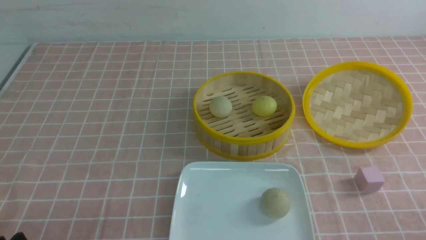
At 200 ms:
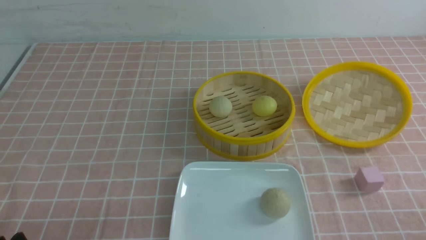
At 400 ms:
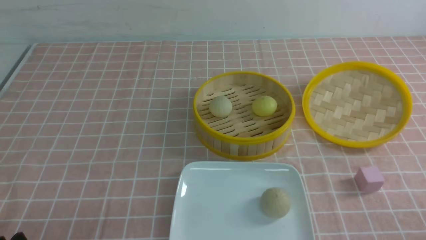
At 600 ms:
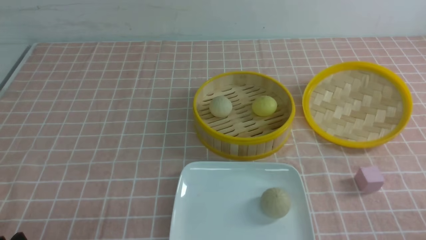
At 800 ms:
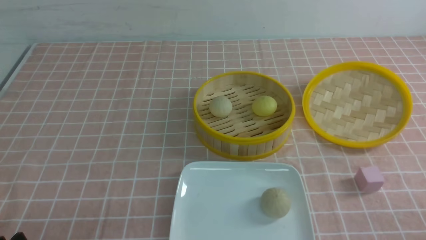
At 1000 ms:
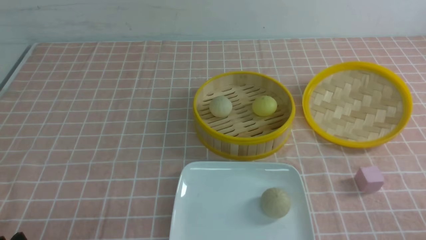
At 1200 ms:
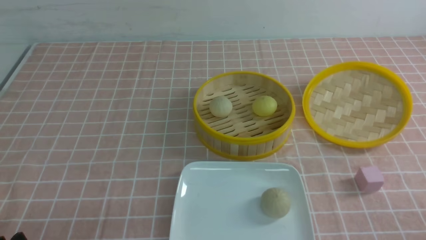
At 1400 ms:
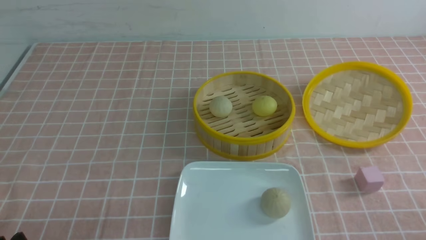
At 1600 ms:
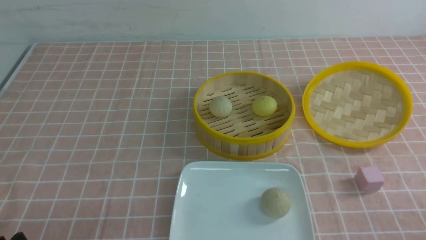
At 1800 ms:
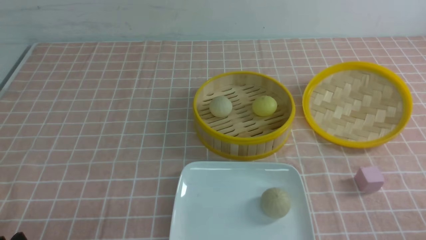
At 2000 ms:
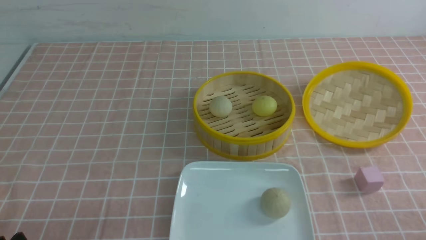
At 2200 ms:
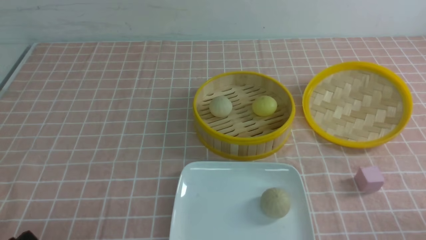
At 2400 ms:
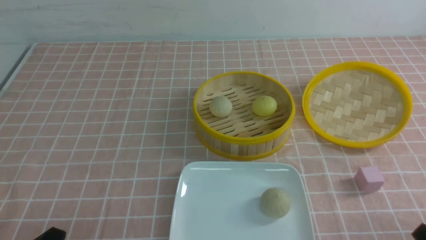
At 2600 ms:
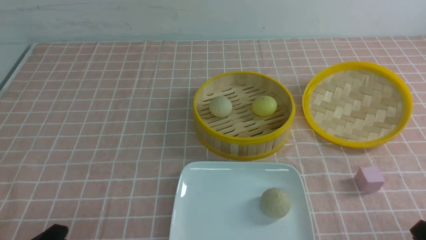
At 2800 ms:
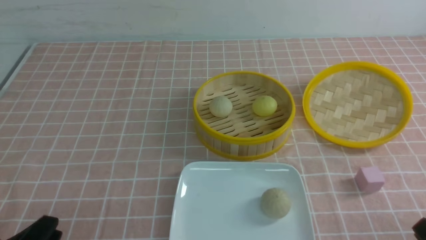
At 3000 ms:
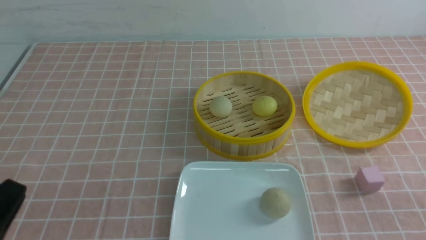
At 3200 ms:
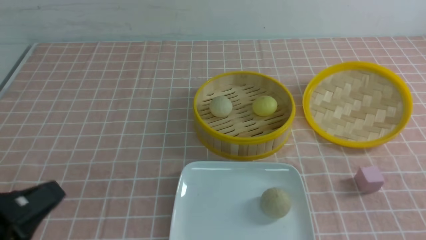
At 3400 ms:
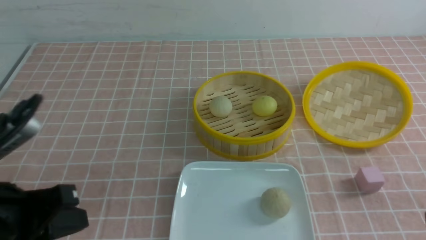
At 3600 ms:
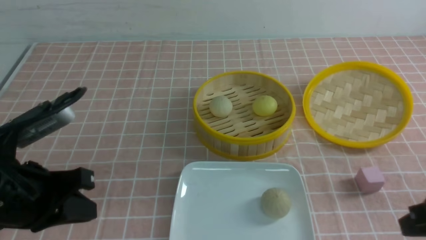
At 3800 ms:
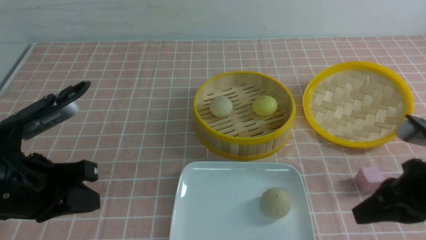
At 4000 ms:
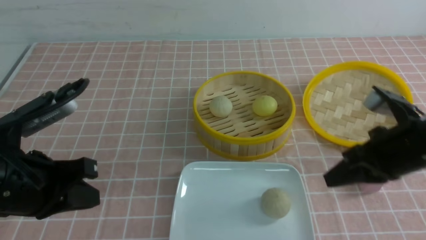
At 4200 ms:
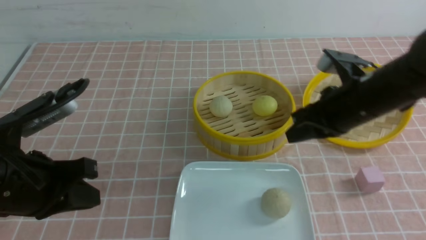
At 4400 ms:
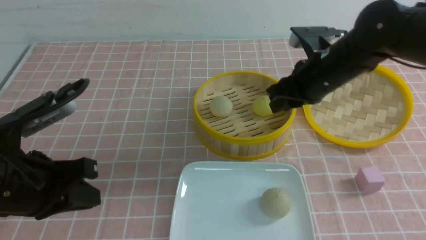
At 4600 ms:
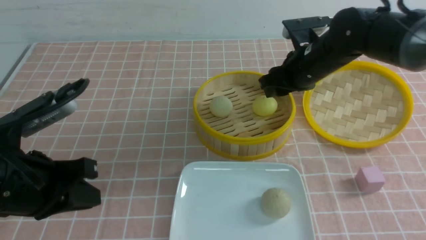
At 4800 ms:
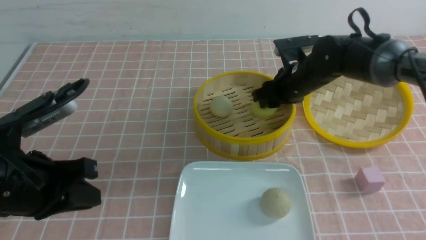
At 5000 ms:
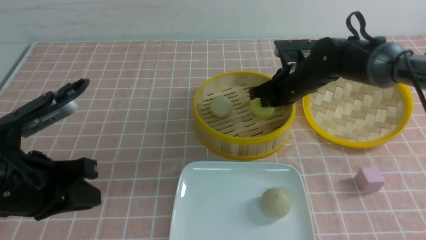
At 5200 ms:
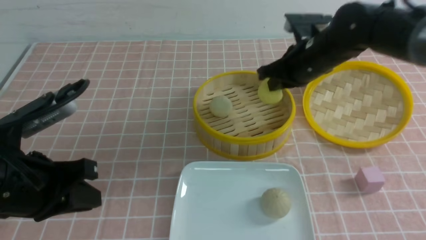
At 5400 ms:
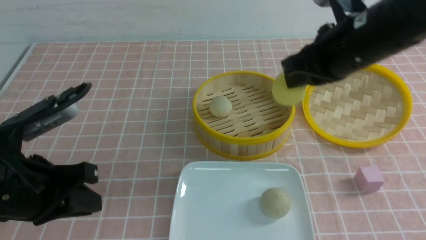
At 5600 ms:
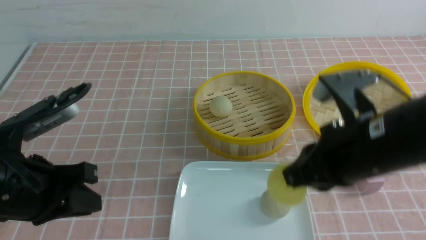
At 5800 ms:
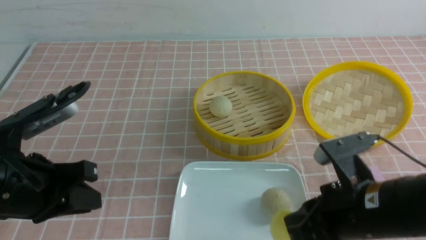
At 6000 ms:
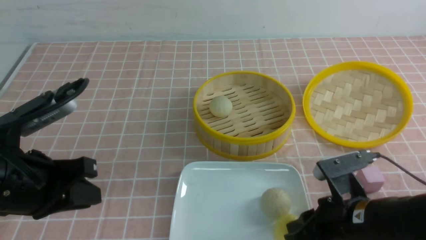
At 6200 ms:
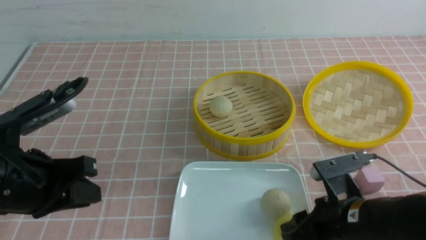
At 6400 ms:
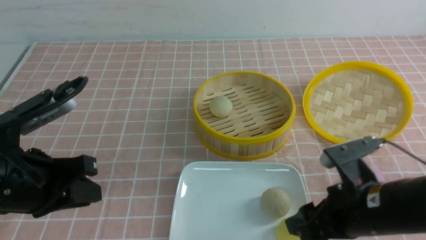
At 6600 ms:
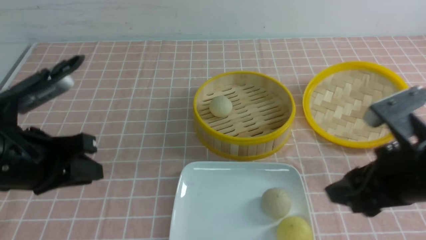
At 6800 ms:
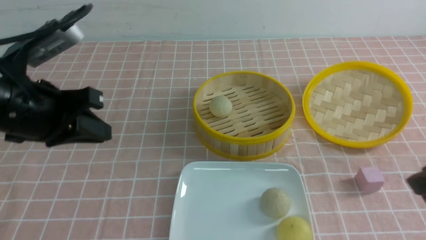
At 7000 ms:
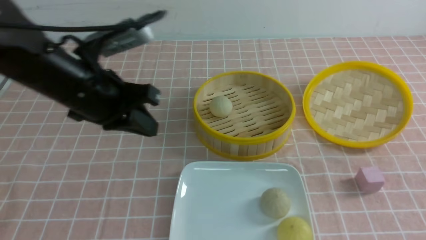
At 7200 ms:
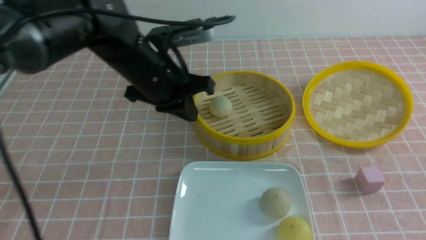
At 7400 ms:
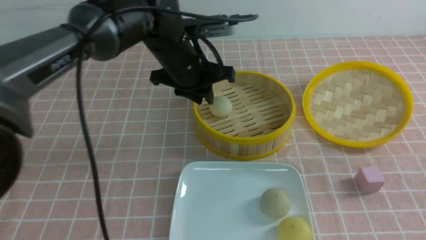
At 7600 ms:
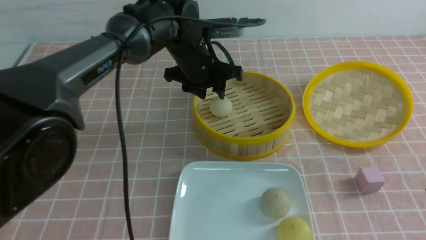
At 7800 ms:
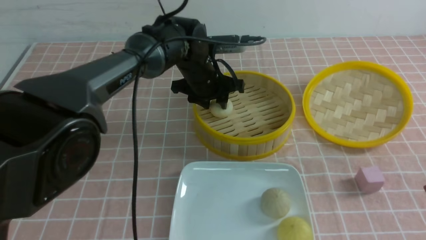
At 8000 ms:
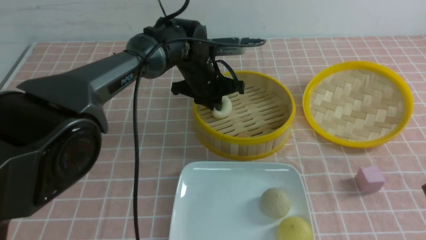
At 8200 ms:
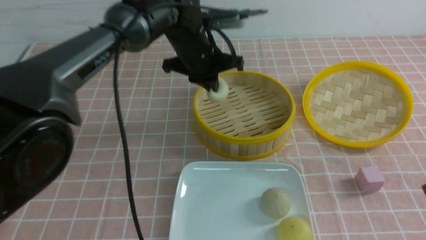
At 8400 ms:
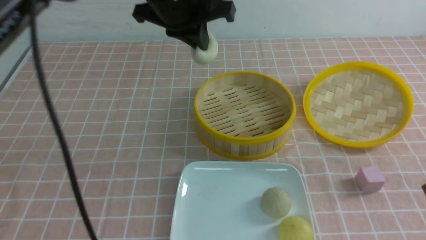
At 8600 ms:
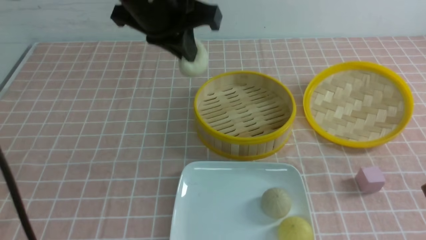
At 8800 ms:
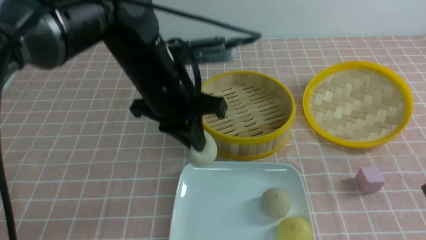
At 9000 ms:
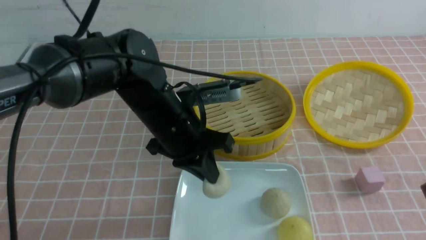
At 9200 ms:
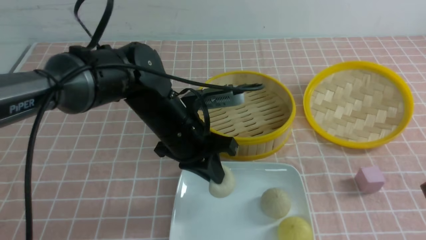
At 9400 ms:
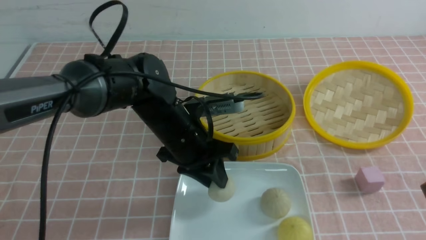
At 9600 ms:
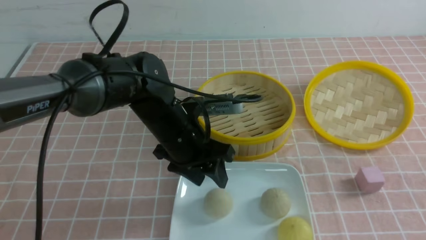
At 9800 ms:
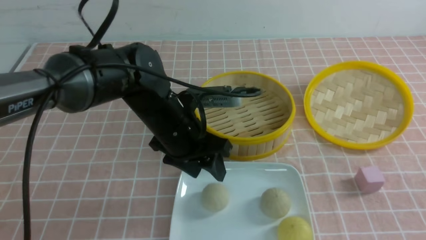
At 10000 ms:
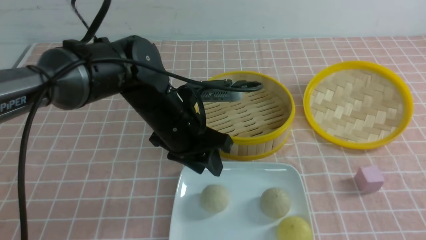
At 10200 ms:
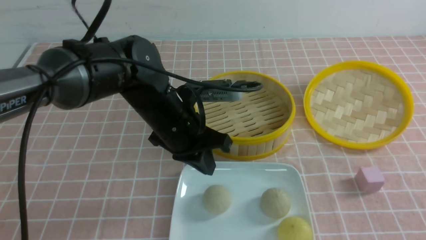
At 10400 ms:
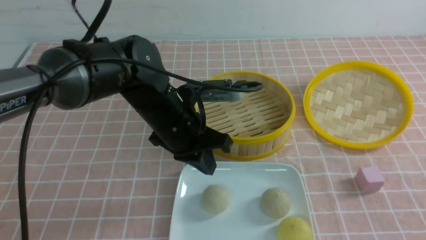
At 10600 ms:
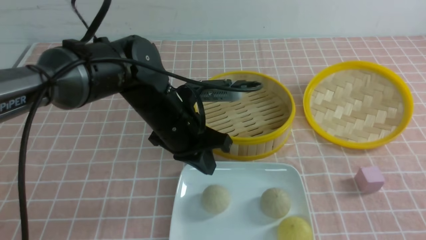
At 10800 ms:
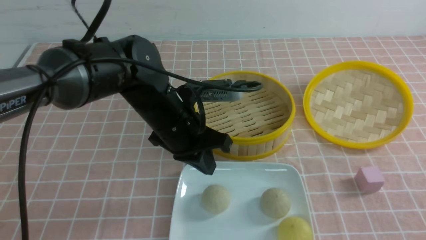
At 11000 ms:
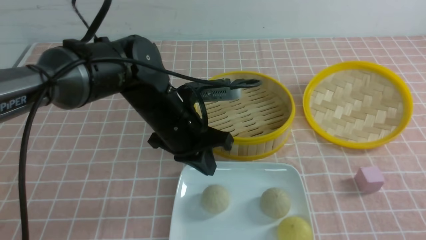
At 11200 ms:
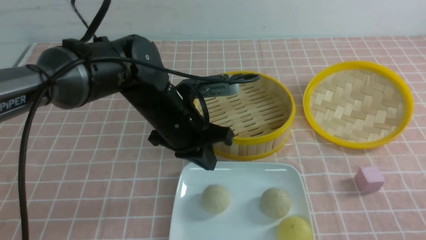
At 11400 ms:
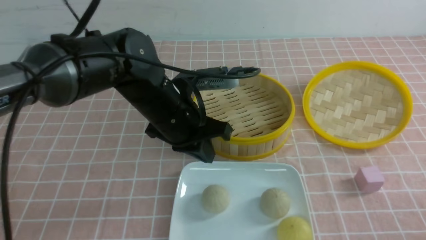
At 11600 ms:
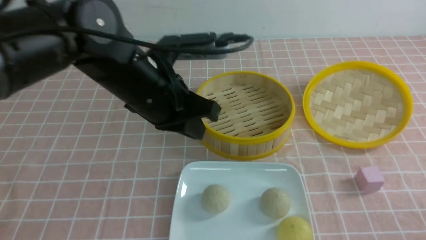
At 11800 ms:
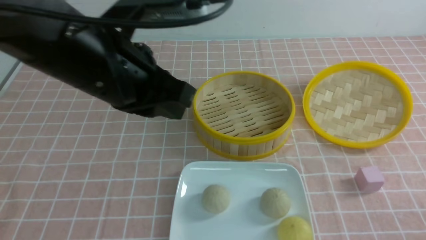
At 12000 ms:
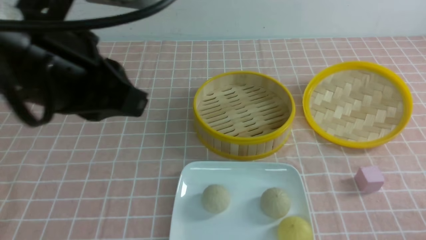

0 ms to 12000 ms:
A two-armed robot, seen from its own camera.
Step, 0 ms to 4800 ms: use the right arm to grab the steamed stuffed bun that is closest to it.
Step, 5200 ms to 6200 ms: use the right arm to put the steamed stuffed bun into the plate.
Step, 6400 ms to 8000 ms: use the left arm to grab the steamed stuffed bun that is closest to it.
Step, 8200 ms to 9600 ms: use the left arm to put the steamed stuffed bun into the plate.
1600 ms to 3000 ms: The left gripper travels upward by roughly 5 cm.
3000 ms to 4400 ms: The right gripper shifts about 30 cm forward and to the left; the left gripper travels forward by about 15 cm.
4400 ms to 6000 ms: The right gripper heads backward and downward, covering approximately 20 cm.
6000 ms to 7600 ms: The right gripper moves to the right and upward, about 15 cm, and opens, then closes once more; the left gripper shifts about 30 cm forward and to the right, and opens its fingers.
7600 ms to 9000 ms: The left gripper shifts approximately 10 cm backward, moves roughly 10 cm upward and comes back, and closes up.
9000 ms to 10400 ms: The left gripper opens, then closes once more, while the right gripper travels backward by about 10 cm.
10400 ms to 12000 ms: The left gripper travels upward, backward and to the left by some 20 cm. The right gripper heads downward, covering roughly 10 cm.

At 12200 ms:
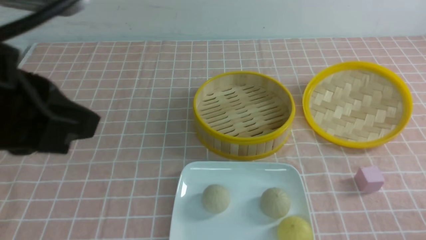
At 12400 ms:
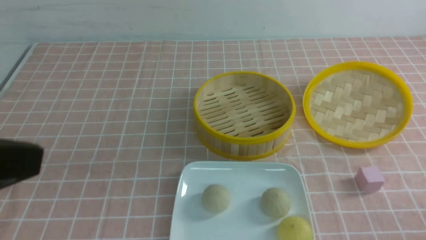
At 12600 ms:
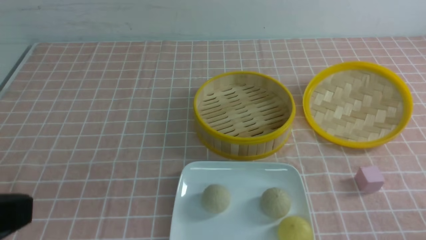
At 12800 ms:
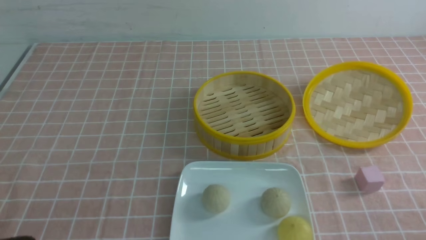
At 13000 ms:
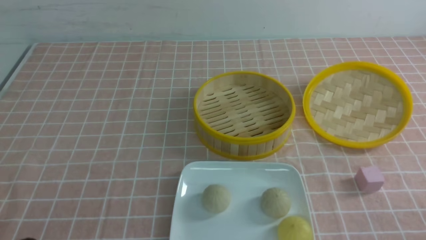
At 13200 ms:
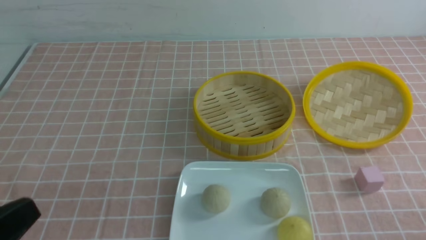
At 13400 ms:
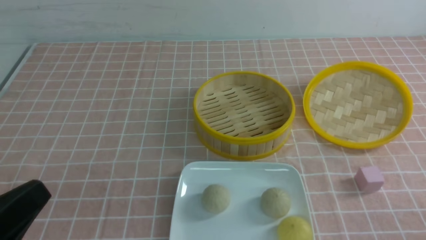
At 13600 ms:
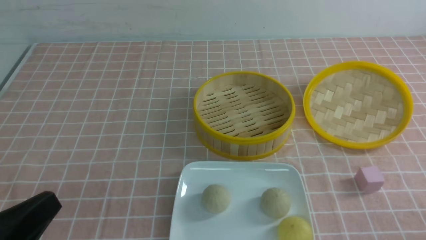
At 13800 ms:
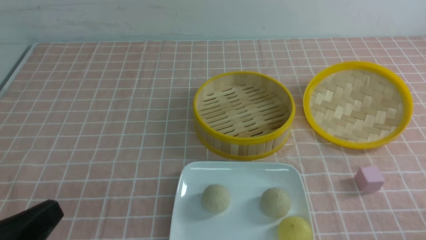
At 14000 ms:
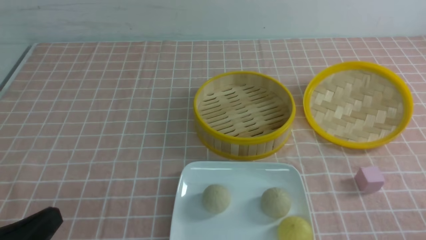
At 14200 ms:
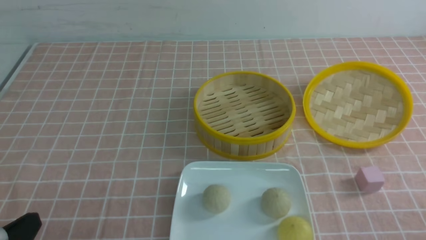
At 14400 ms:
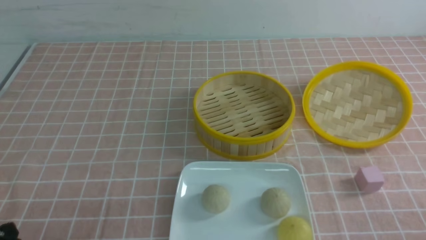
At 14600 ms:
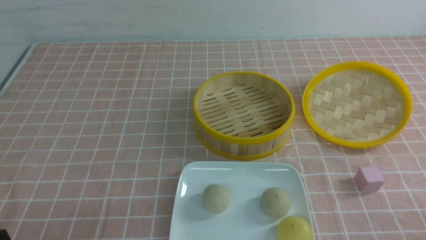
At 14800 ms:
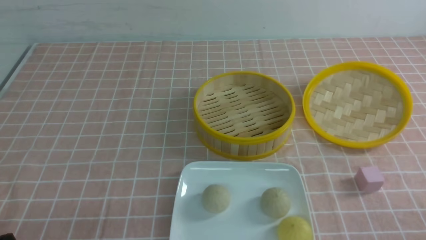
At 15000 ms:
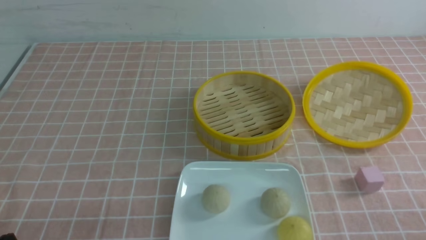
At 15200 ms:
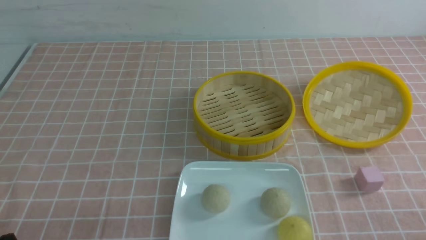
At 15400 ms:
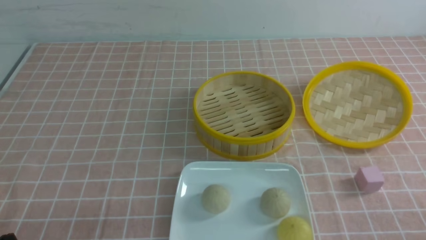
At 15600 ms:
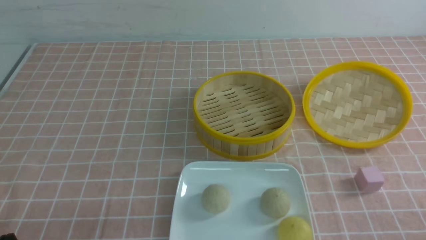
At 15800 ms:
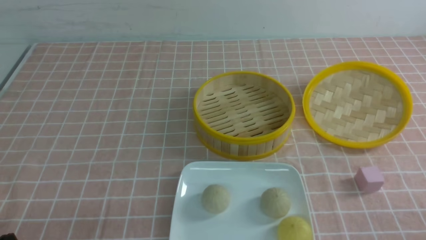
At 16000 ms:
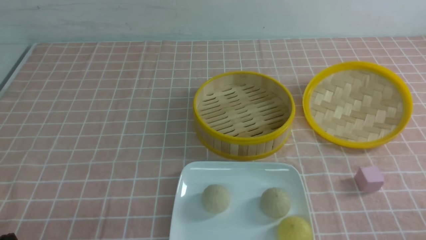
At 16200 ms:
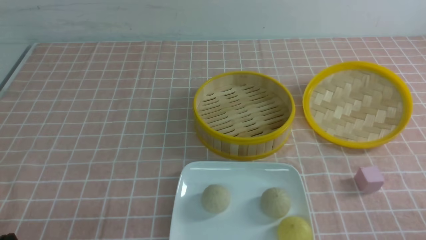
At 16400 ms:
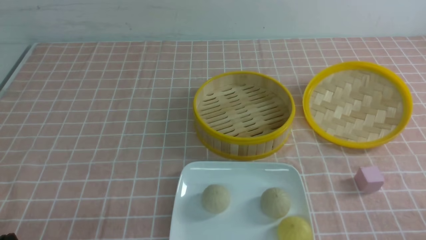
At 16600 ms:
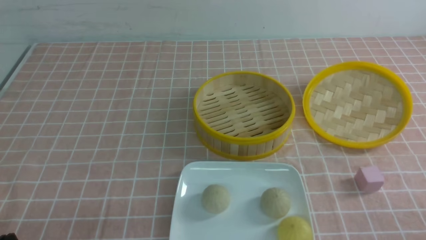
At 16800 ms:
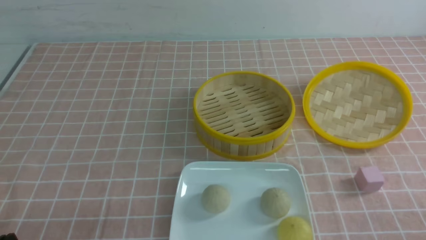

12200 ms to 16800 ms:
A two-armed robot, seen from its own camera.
12200 ms to 13800 ms: The left gripper moves downward, backward and to the left, about 20 cm.
13800 ms to 15200 ms: The left gripper travels downward by about 10 cm.
15200 ms to 16800 ms: Both grippers stay put.
